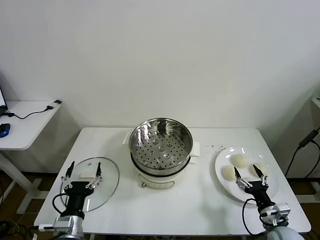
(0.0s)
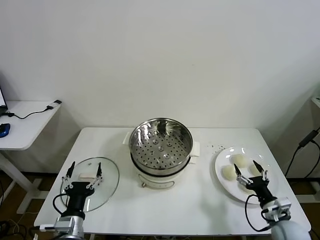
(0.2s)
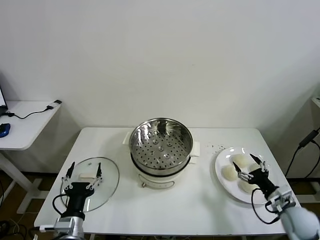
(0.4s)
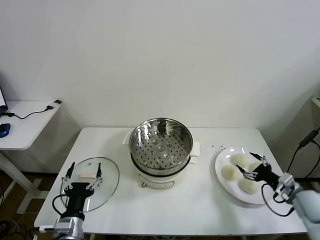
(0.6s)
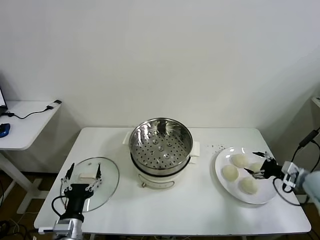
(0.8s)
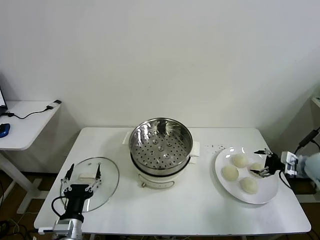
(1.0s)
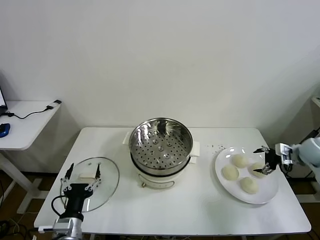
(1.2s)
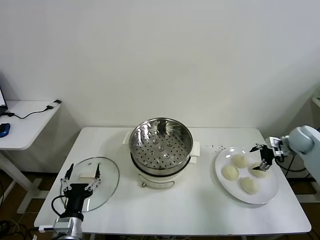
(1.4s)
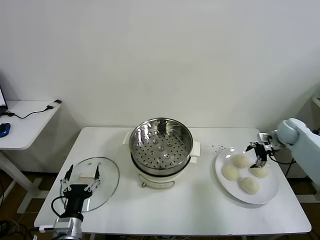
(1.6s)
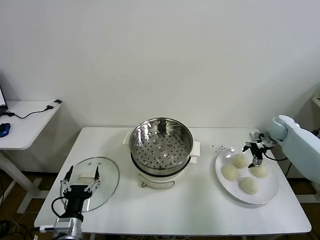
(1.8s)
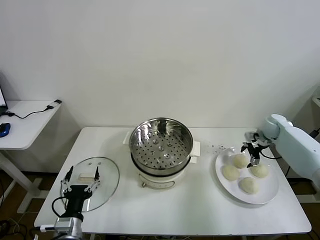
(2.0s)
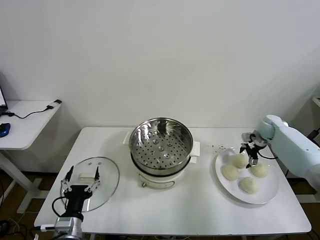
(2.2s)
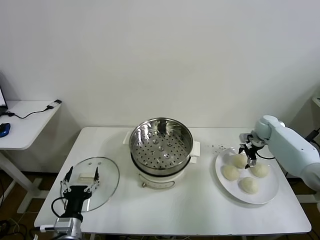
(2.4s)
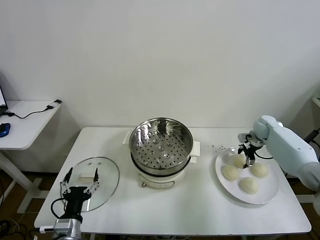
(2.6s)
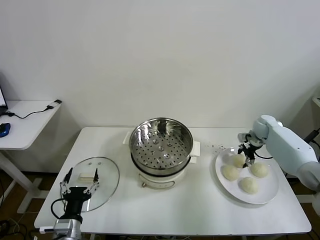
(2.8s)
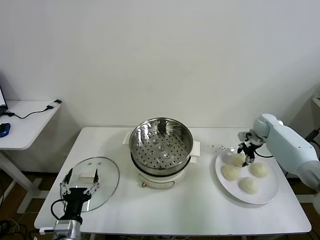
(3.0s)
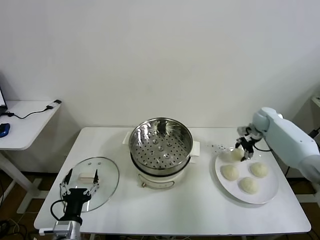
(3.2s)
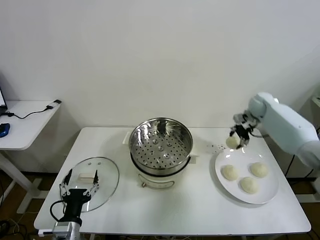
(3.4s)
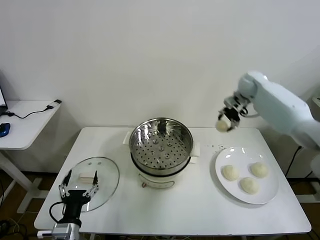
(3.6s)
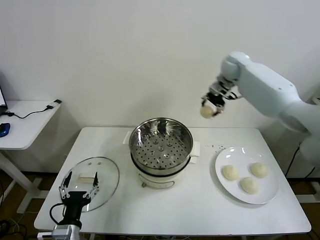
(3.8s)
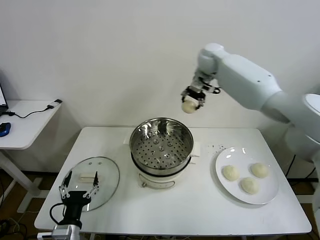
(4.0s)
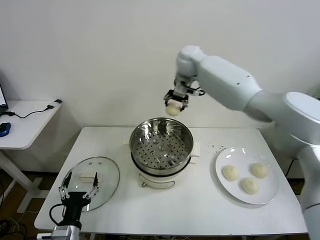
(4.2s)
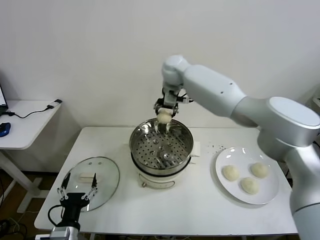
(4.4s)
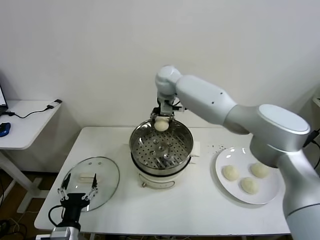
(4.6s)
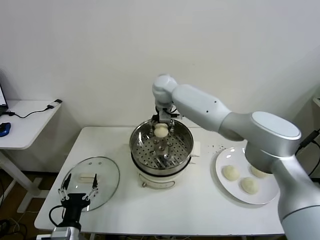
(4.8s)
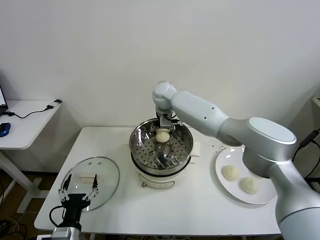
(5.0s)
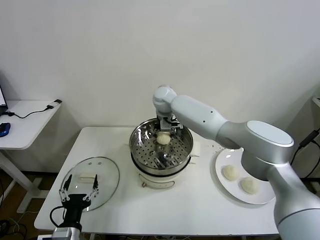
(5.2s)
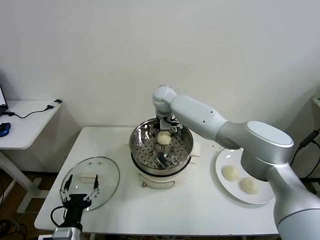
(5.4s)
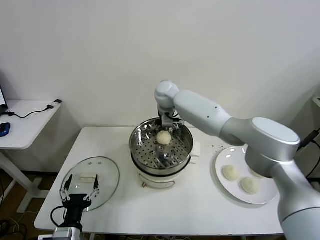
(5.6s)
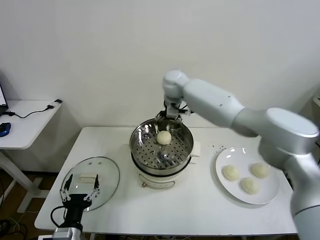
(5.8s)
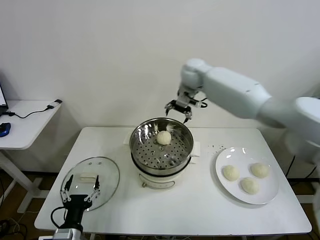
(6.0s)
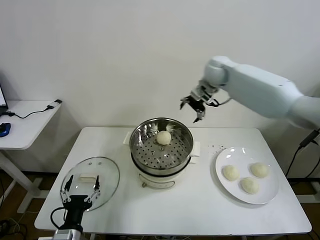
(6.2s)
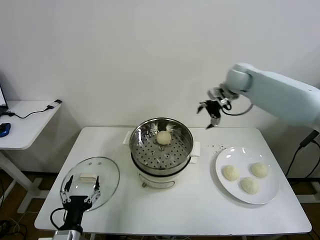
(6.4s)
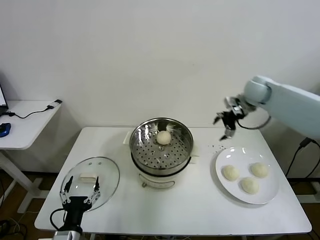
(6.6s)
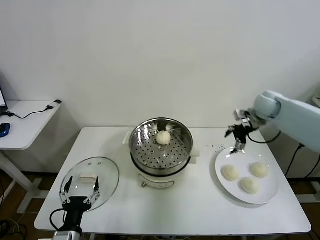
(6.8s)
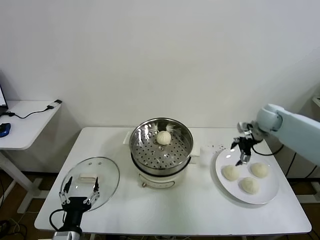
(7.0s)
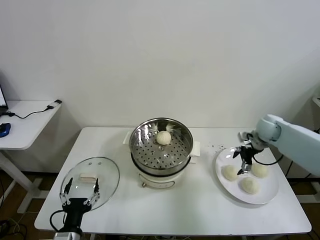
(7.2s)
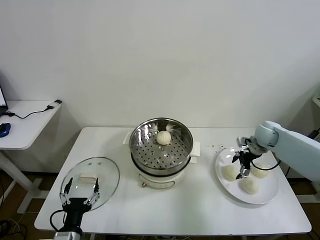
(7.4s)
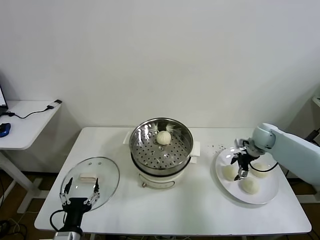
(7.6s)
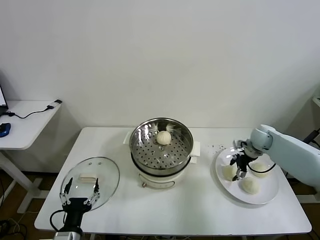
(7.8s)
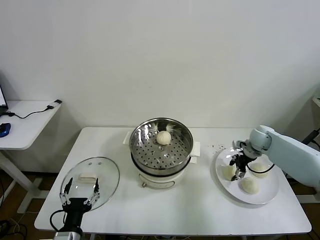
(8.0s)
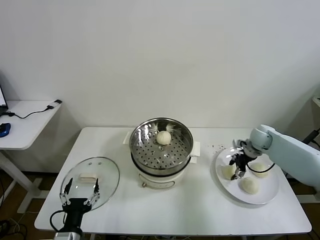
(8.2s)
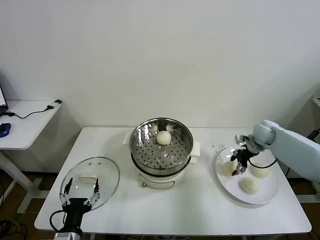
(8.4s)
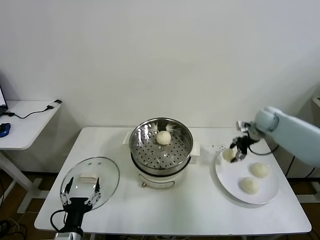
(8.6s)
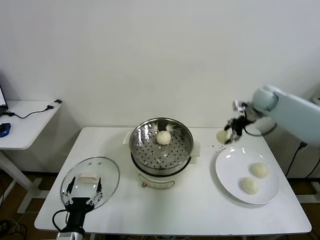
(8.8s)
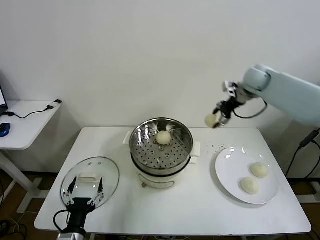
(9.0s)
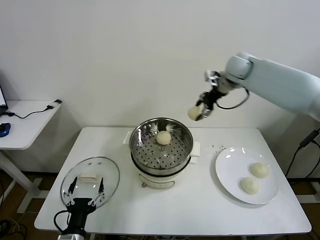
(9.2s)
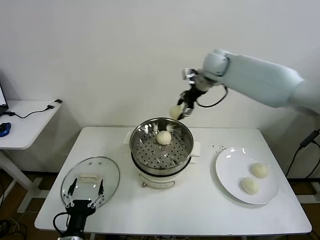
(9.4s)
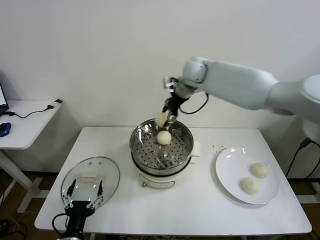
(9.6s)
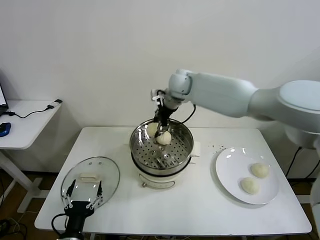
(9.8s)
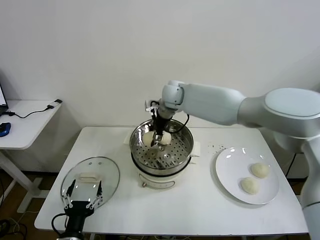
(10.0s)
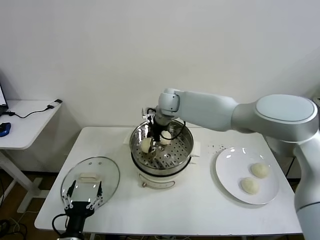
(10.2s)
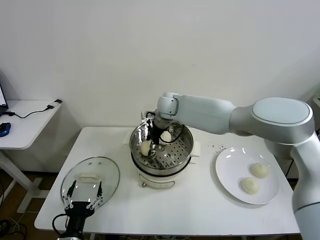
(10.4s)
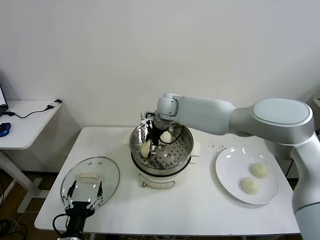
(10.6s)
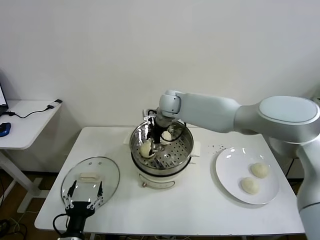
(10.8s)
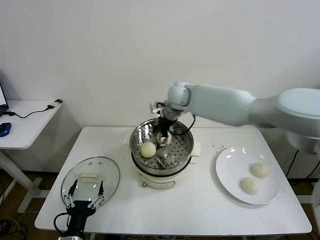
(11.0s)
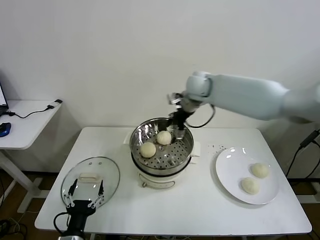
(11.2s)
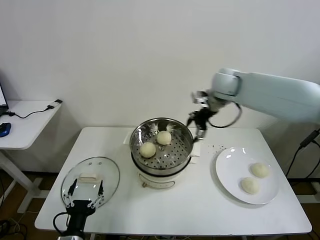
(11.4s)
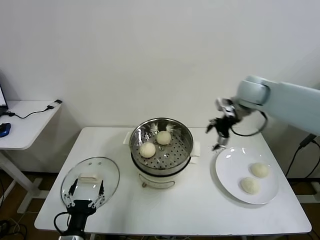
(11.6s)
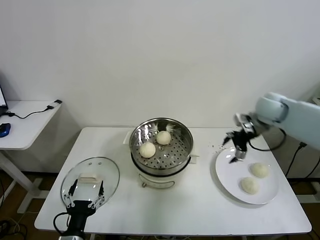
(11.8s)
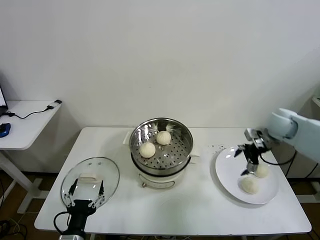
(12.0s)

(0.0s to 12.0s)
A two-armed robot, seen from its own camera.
Task of the whole recording: take steamed baozi put them in steamer then cover it.
Step, 0.0s - 2.8s: Grasp the baozi in the plate with right gripper.
Step, 3.0s - 6.0s: Place the baozi on the steamer with right gripper.
Step, 6.2s - 8.2s: Grasp the baozi in the plate with right gripper.
Step, 8.4s - 10.6s: Place the baozi on the steamer with right gripper.
1.6s - 3.0s: The right gripper heads forward, covering some 5 cm, and closes its fingers.
3.0s - 4.4s: The right gripper shifts approximately 50 cm to the left and upward.
4.4s - 6.0s: The right gripper heads to the right, covering approximately 10 cm, and opens its fingers.
6.0s - 7.6s: The right gripper goes some 35 cm to the right and downward.
7.6s - 9.0s: The right gripper goes roughly 25 cm upward and to the left, and closes.
9.0s - 10.4s: The right gripper shifts about 30 cm to the left and downward.
10.4s - 12.0s: The right gripper heads to the right, covering some 40 cm, and opens.

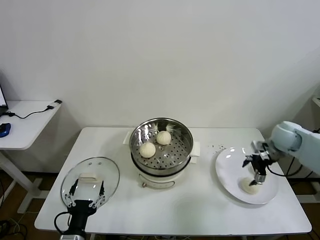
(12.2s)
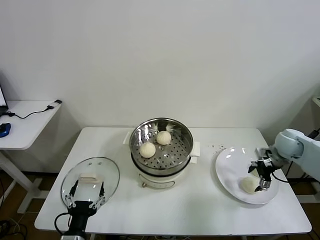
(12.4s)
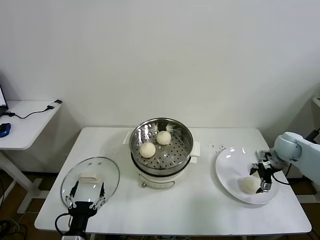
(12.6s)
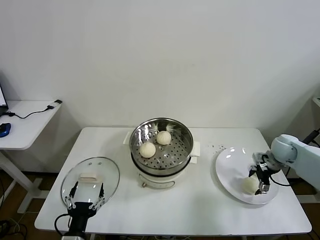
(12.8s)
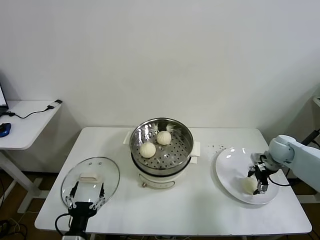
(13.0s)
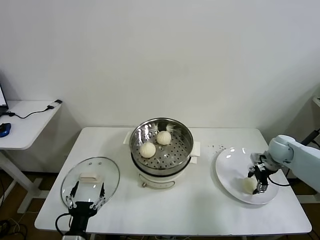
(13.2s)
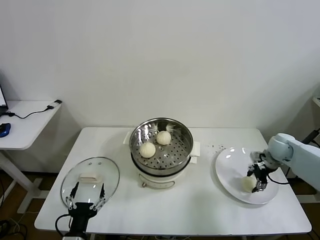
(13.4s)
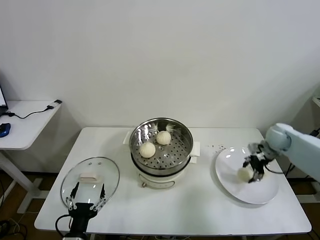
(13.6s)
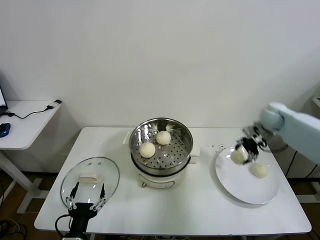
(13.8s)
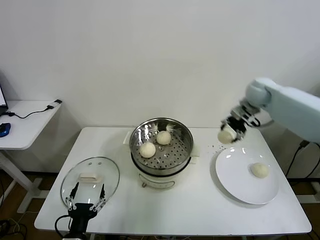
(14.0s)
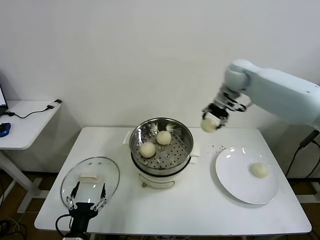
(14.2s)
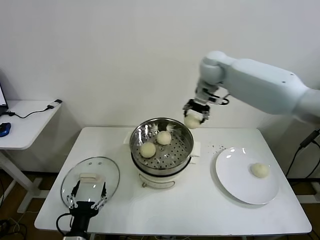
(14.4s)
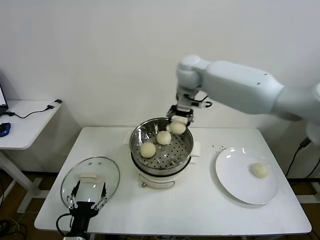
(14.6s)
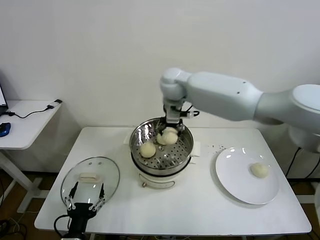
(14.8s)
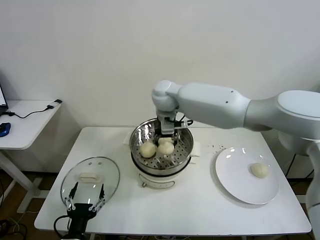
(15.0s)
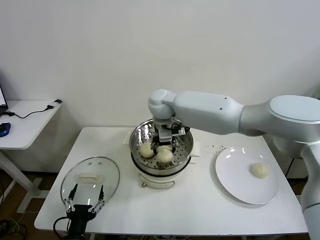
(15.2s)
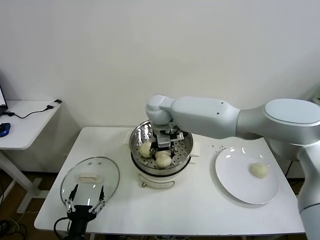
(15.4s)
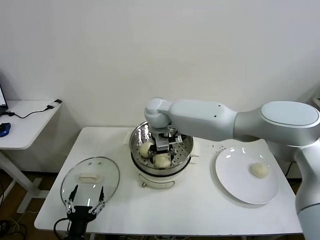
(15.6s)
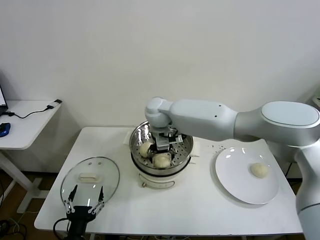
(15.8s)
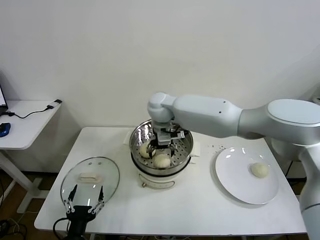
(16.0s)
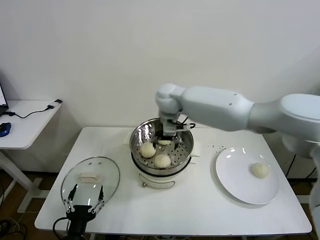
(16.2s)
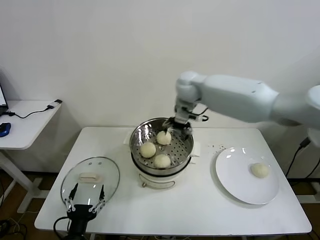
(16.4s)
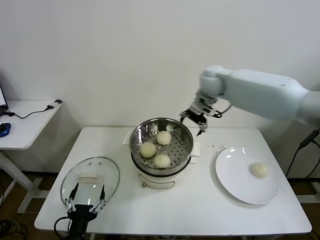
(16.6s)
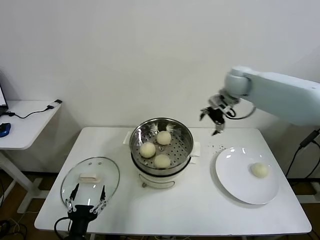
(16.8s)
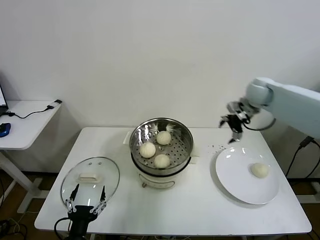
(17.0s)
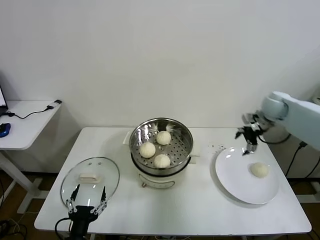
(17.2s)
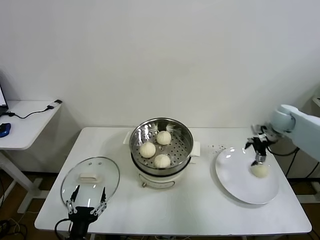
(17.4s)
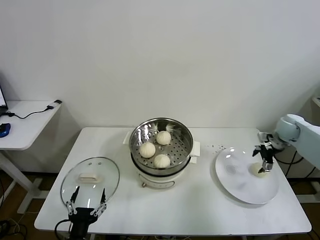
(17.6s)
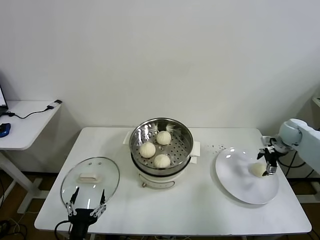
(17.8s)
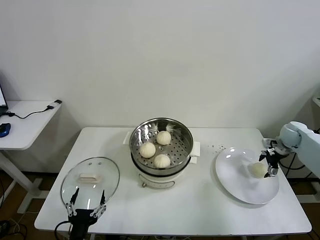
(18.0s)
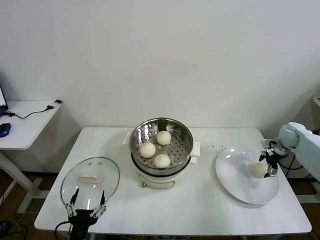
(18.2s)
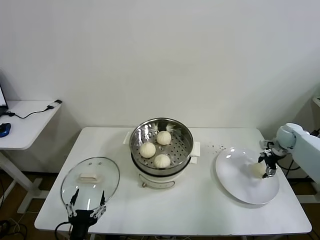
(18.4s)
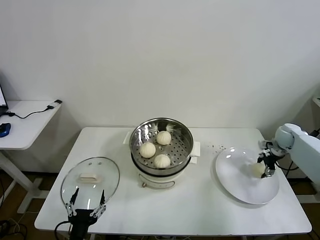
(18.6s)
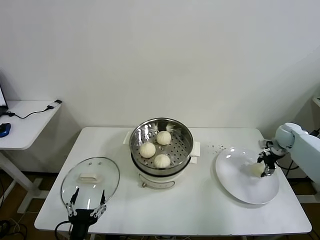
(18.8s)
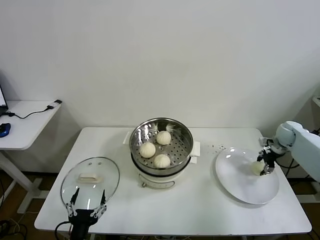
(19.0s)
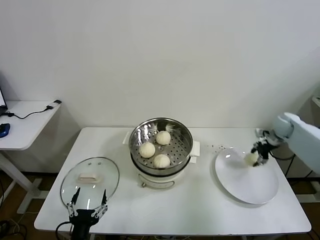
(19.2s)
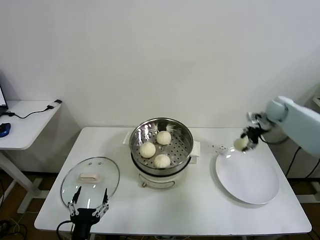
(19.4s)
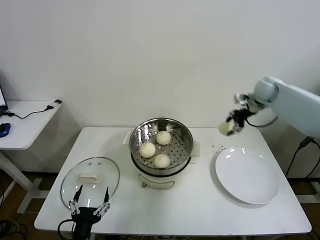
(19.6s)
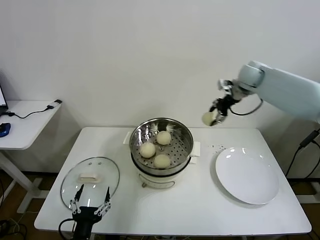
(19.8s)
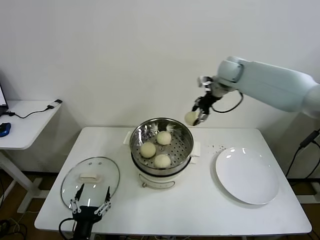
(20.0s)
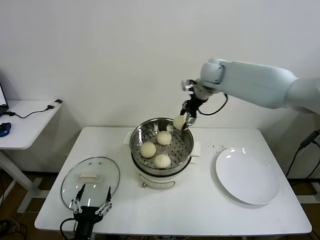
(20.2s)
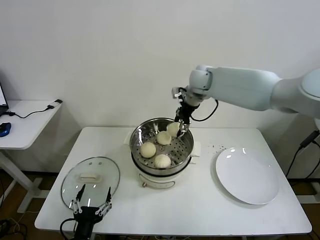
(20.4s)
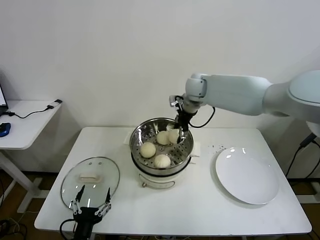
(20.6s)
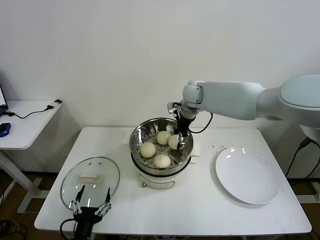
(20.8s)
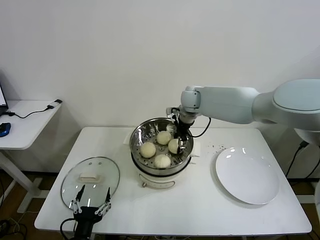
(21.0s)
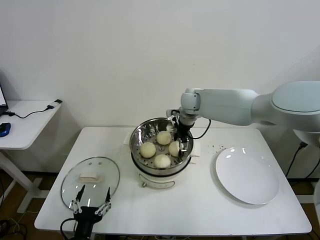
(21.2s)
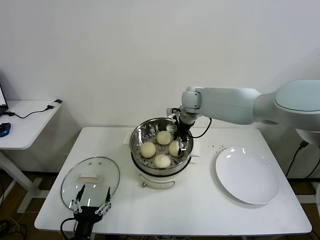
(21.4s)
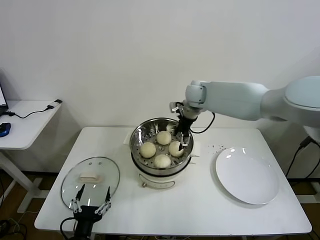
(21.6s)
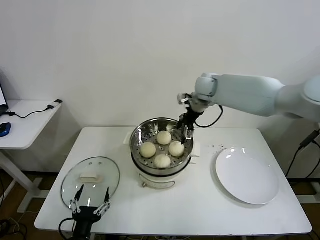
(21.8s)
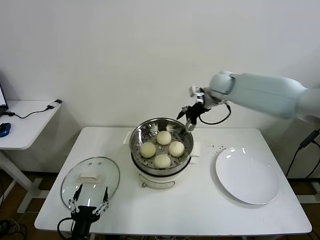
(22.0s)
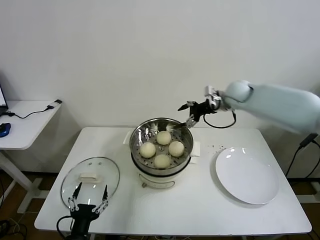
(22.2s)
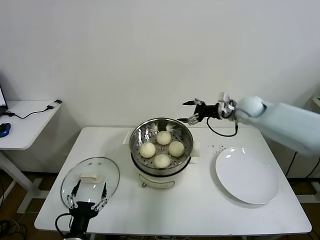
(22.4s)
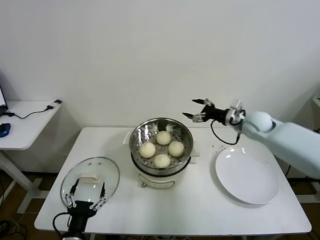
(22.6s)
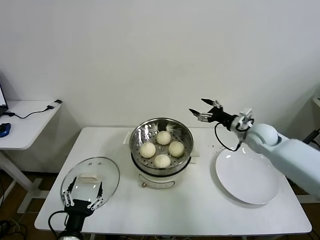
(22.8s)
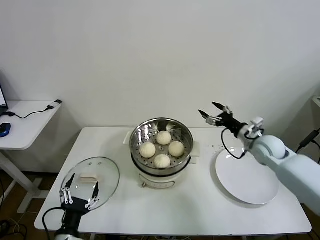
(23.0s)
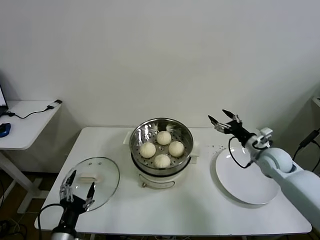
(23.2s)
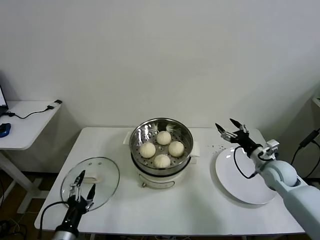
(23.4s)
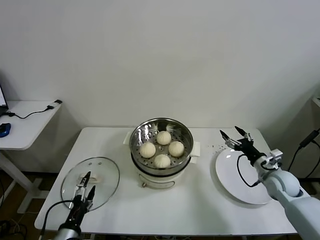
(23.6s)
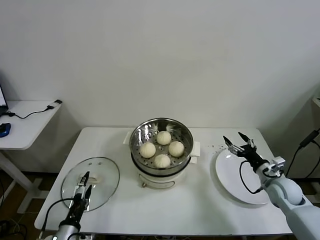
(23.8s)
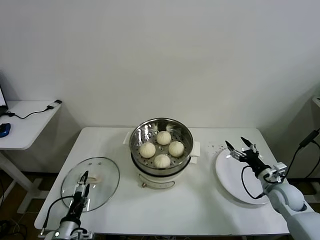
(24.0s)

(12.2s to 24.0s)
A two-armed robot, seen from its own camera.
Task of the whole recording: take steamed baozi put them in steamer then cover it.
Step, 13.6s - 16.2s: Place the baozi on the steamer with right gripper.
Step, 16.4s - 18.8s: Grasp the baozi in the plate with right gripper.
Step, 19.0s - 21.6s: Place the baozi on the steamer with right gripper.
12.2s - 13.6s: The right gripper closes up.
13.6s - 15.2s: The right gripper goes about 40 cm to the left.
15.2s - 16.6s: The right gripper goes approximately 20 cm to the right, and opens up.
16.6s - 18.2s: The right gripper is displaced to the right and downward by some 40 cm.
18.2s - 19.6s: The right gripper heads upward, to the left and forward, covering roughly 25 cm, and closes up.
19.6s - 21.0s: The right gripper moves to the left, about 25 cm.
21.0s - 22.6s: The right gripper travels to the right by some 20 cm, and opens up.
22.6s - 24.0s: The left gripper travels to the left, downward and forward by about 10 cm. Meanwhile the right gripper travels backward, downward and to the right by some 25 cm.
